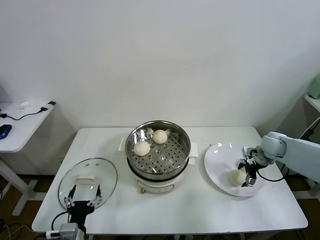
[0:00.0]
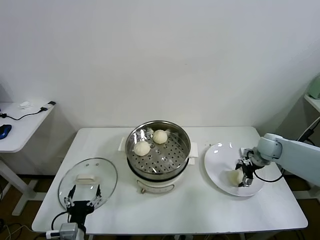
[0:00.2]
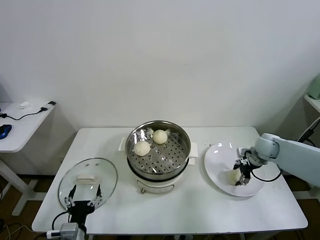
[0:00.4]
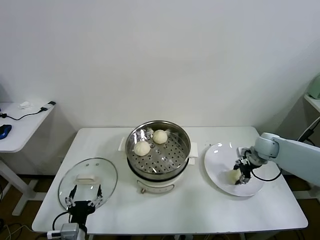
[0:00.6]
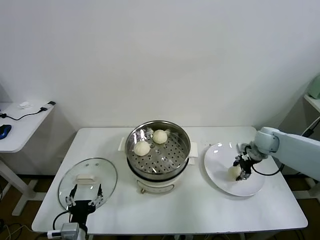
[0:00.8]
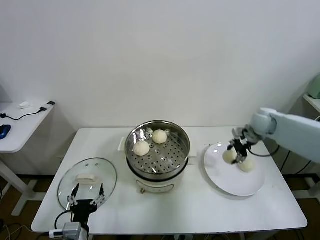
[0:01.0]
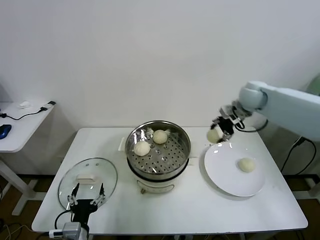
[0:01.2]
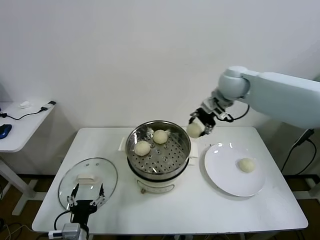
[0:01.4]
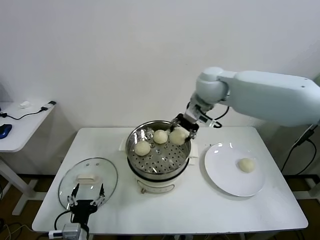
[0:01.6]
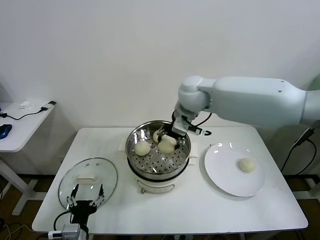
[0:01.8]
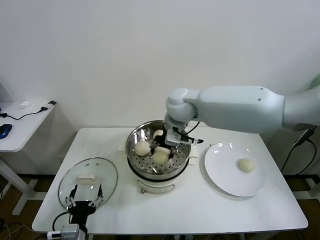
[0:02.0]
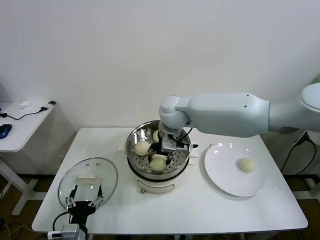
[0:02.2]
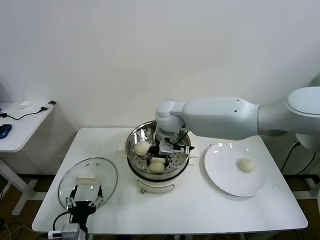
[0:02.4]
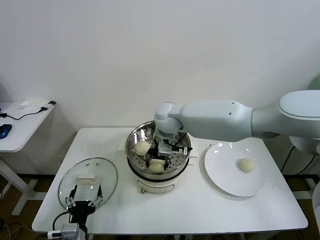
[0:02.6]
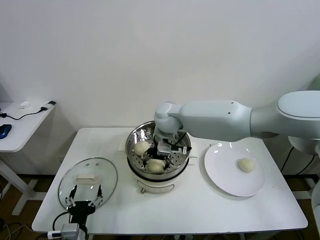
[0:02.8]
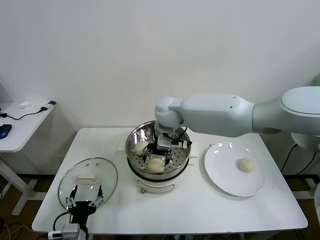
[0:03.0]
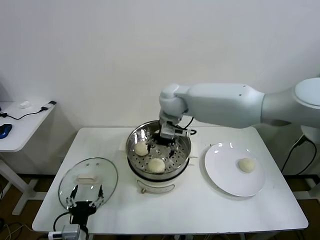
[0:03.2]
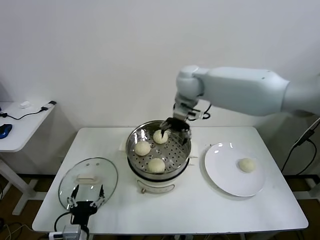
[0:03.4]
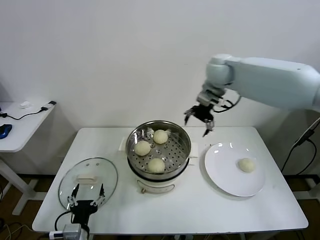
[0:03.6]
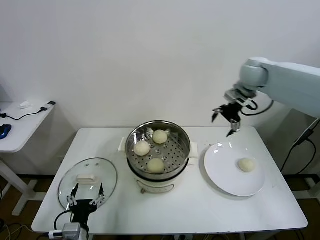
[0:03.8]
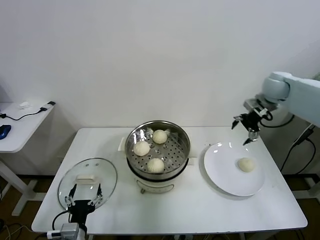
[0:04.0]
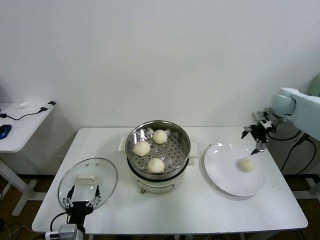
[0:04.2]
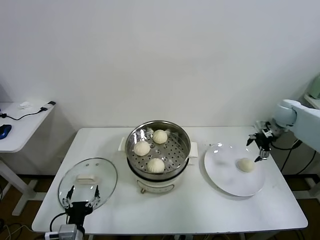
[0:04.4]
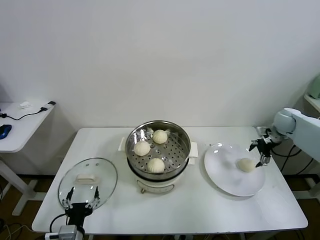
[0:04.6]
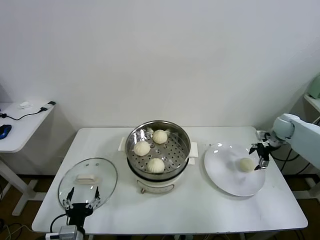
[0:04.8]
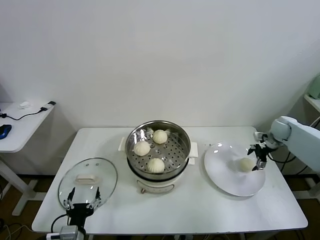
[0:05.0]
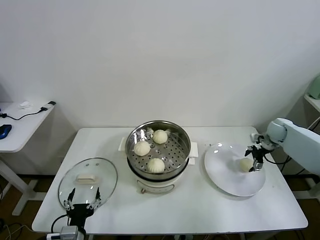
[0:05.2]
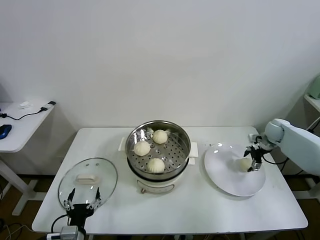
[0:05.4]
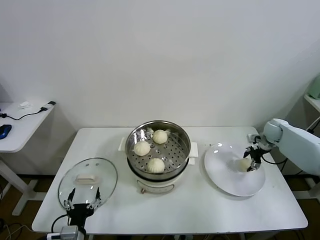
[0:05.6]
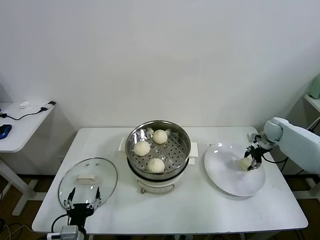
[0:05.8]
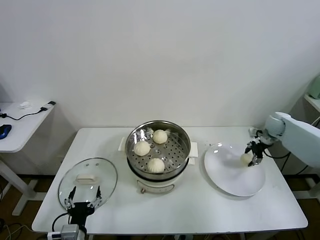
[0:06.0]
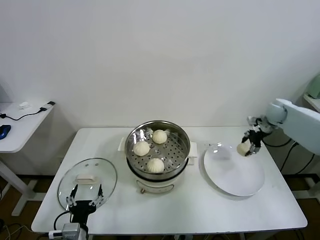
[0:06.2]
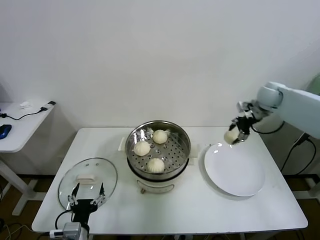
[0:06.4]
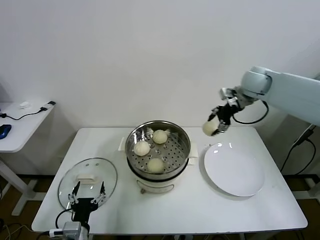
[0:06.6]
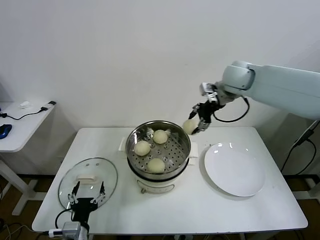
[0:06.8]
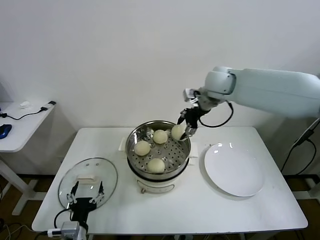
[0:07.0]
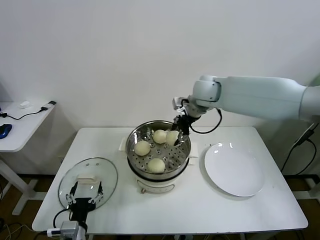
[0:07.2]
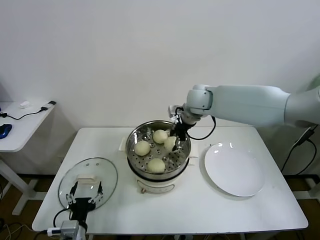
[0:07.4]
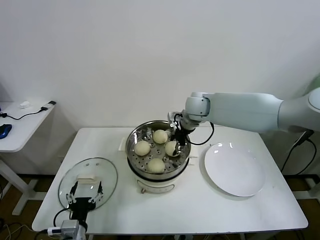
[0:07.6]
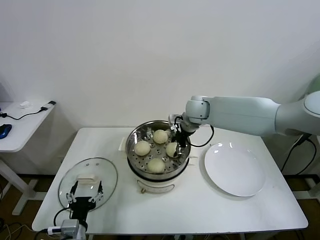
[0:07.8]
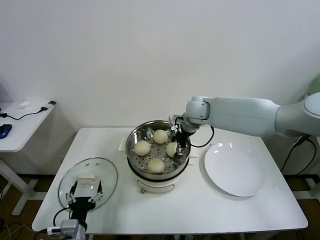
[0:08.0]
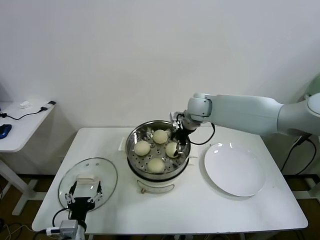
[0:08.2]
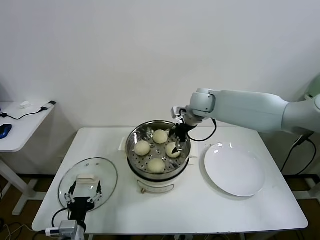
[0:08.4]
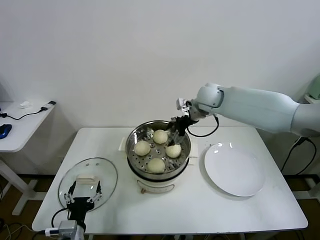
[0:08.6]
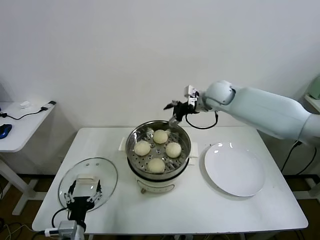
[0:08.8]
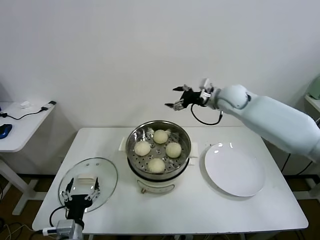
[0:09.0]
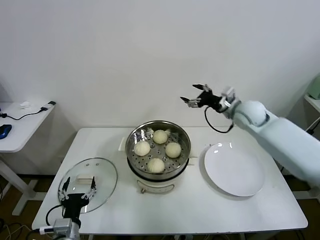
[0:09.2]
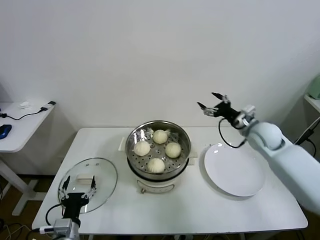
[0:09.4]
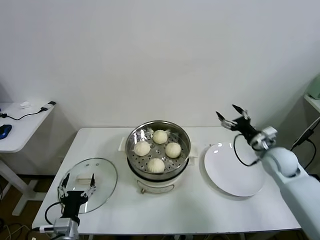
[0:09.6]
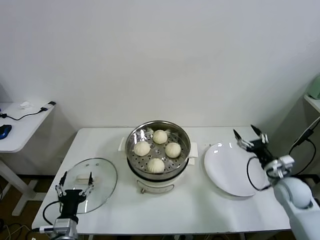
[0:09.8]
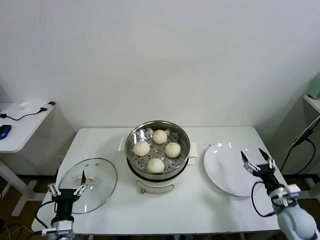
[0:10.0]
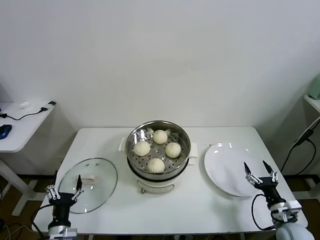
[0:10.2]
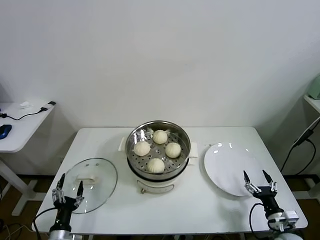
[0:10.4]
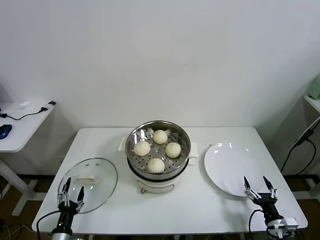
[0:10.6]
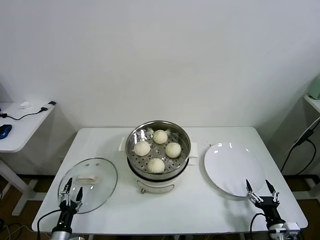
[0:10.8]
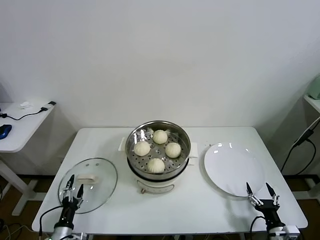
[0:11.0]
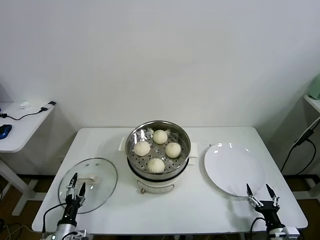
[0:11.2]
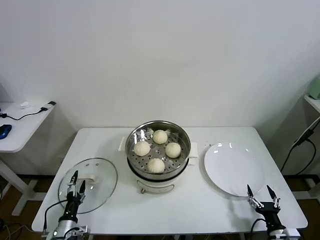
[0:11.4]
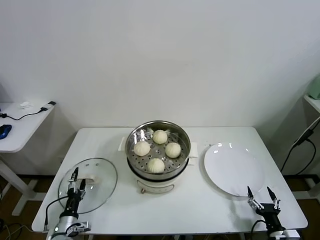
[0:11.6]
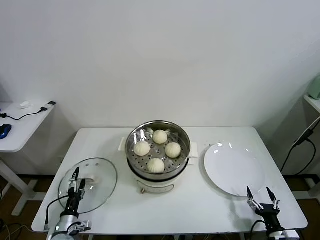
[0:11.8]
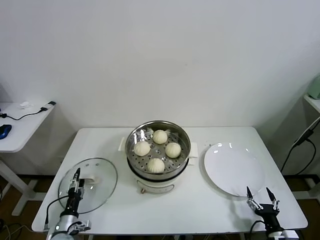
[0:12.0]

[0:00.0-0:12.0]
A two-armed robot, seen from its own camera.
Task of the whole recording: take steamed baozi put them in steamer.
Step, 0:00.6 to 0:02.8: Place the baozi on the steamer with right gripper.
Step, 0:03.2 to 0:05.6: Grasp the baozi in the plate with right gripper.
Step, 0:05.8 to 0:08.2: Place the baozi on the steamer with right gripper.
0:00.0 to 0:01.6: The right gripper shifts approximately 35 cm to the left and upward, and closes its fingers.
0:01.6 to 0:03.0: The right gripper is displaced to the left and downward by approximately 15 cm, and opens up.
0:03.0 to 0:04.4: The right gripper goes approximately 40 cm to the right.
0:04.4 to 0:06.0: The right gripper moves downward, roughly 5 cm, and closes.
0:06.0 to 0:07.6: The right gripper is displaced to the left by some 35 cm.
0:07.6 to 0:09.0: The right gripper travels to the right by about 10 cm, and opens up.
0:09.0 to 0:10.4: The left gripper shifts approximately 10 cm downward and to the left. The right gripper heads backward, downward and to the right, covering roughly 50 cm.
0:10.4 to 0:12.0: The left gripper is displaced downward and forward by approximately 10 cm. The right gripper shifts roughly 5 cm backward.

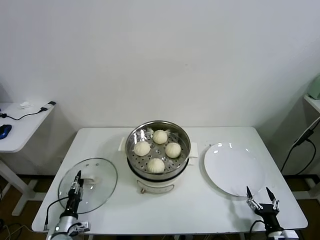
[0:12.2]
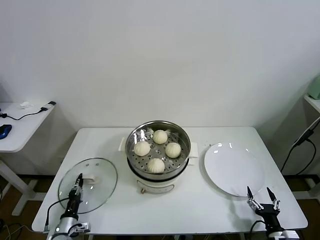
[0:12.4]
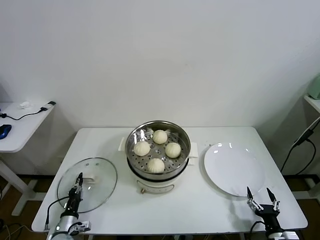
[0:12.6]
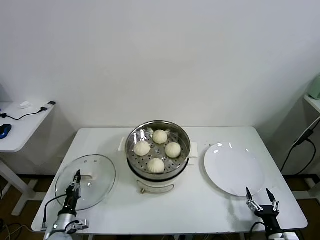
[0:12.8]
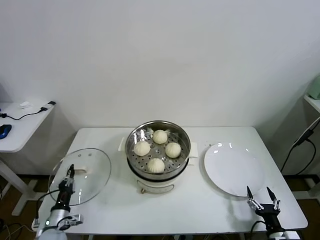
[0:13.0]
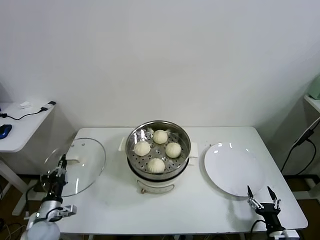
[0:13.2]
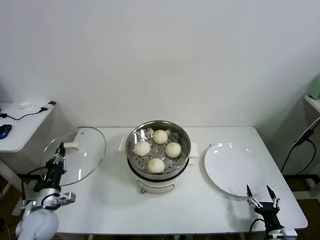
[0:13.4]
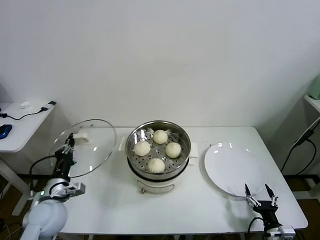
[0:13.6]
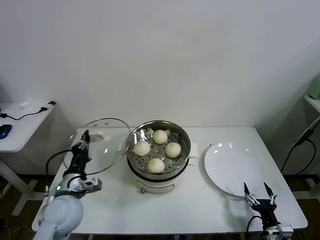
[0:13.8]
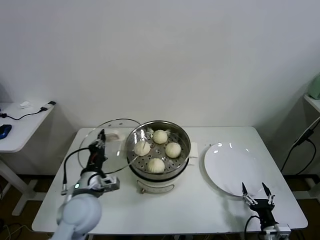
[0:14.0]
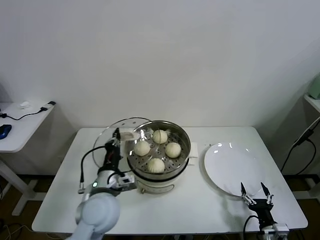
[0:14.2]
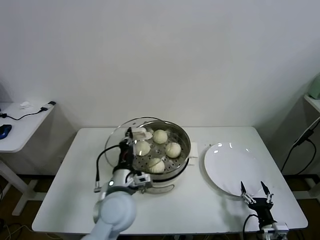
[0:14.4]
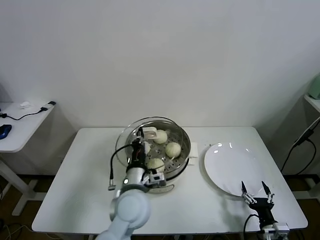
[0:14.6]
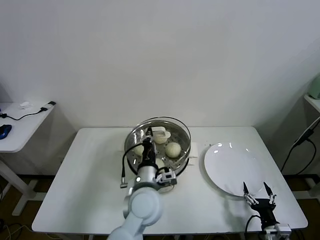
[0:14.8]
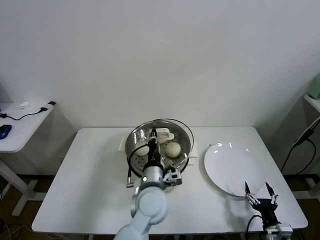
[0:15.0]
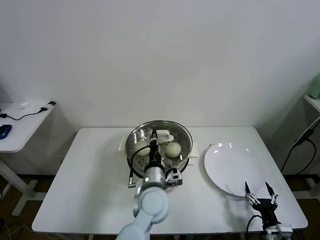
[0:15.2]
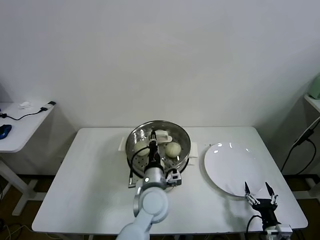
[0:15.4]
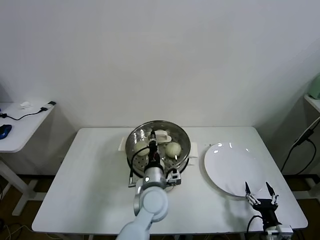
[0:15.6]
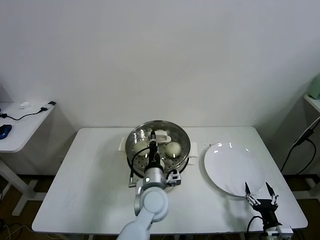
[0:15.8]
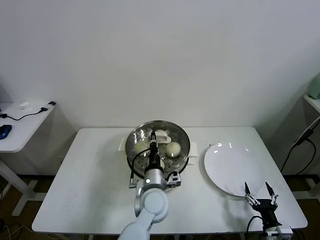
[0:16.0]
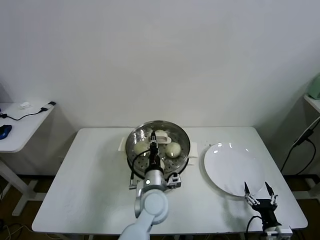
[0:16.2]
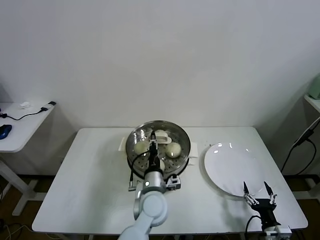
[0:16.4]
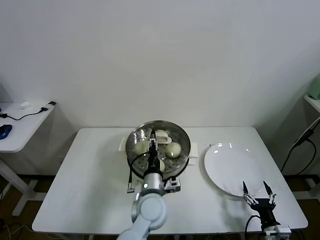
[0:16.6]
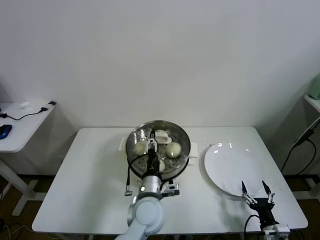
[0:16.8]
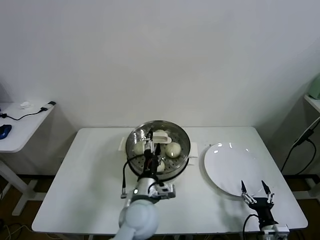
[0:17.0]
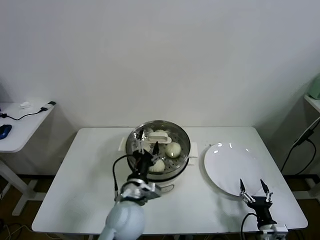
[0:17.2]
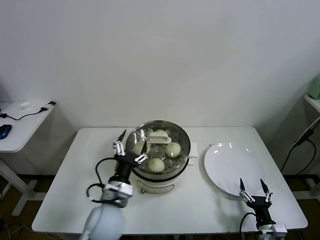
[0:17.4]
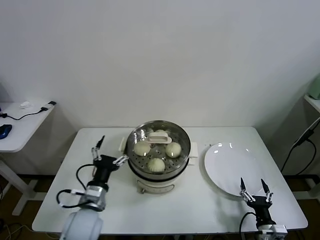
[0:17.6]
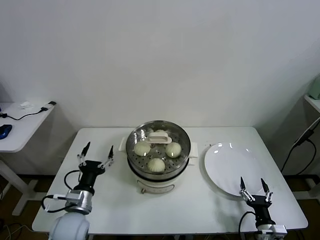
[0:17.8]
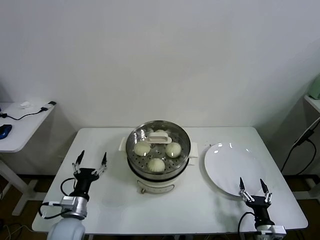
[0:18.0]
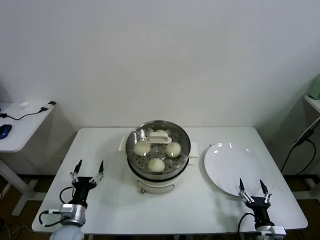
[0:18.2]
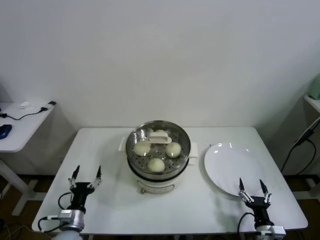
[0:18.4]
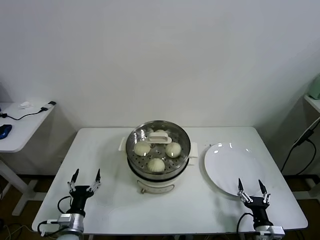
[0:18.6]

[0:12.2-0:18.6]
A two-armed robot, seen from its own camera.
Task of the whole recording: take steamed baozi put them in steamer.
Step, 0:12.6 to 0:16.8: Place the pot lid on the steamer with left gripper.
0:12.2 to 0:13.8: The left gripper moves upward, about 25 cm, and closes.
0:13.8 to 0:15.4: The left gripper moves to the right, roughly 25 cm.
0:15.4 to 0:17.0: The left gripper opens.
0:17.0 to 0:18.6: The left gripper goes approximately 30 cm to the left and downward.
